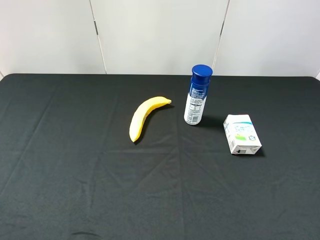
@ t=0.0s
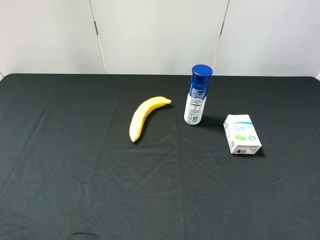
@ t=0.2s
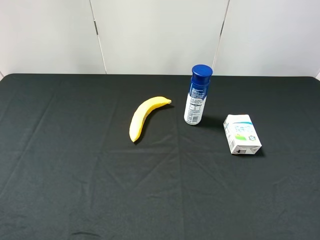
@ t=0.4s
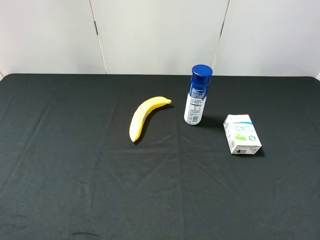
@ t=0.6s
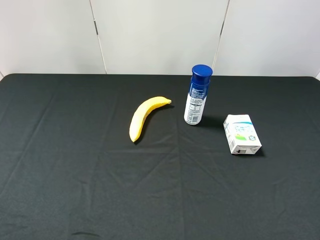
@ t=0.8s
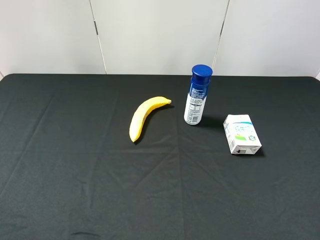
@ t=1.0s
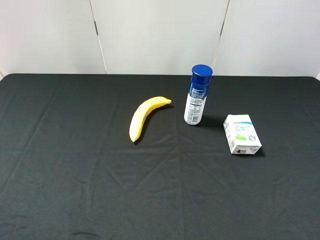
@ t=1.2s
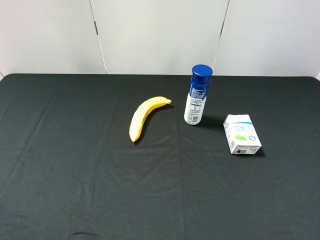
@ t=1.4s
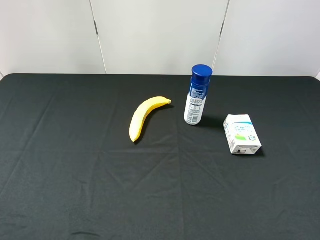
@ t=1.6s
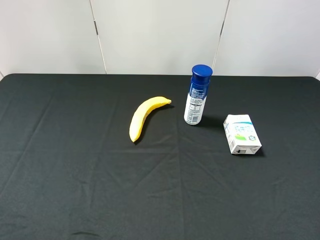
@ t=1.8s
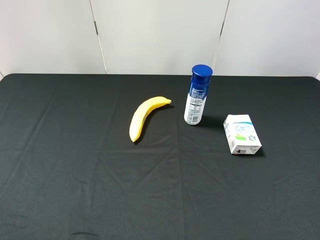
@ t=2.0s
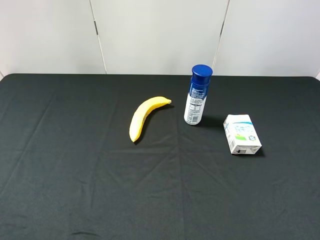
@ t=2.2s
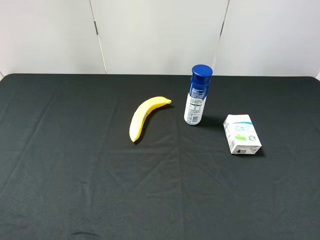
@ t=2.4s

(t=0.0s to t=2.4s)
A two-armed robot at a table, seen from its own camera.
Task of the whole recording: use the left gripper to pick up the item and transfer it from the left gripper to the right gripper.
t=1.2s - t=2.4s: The two grippers keep their place.
